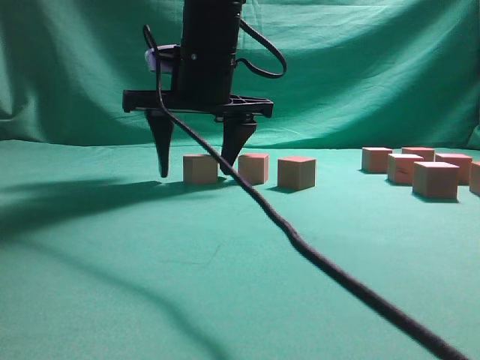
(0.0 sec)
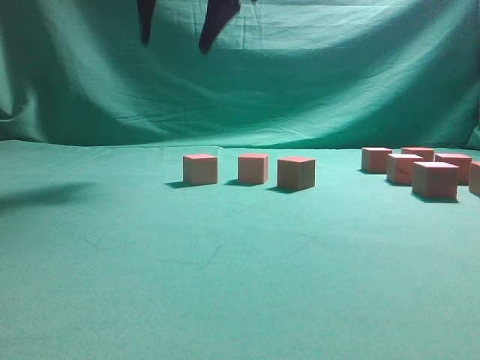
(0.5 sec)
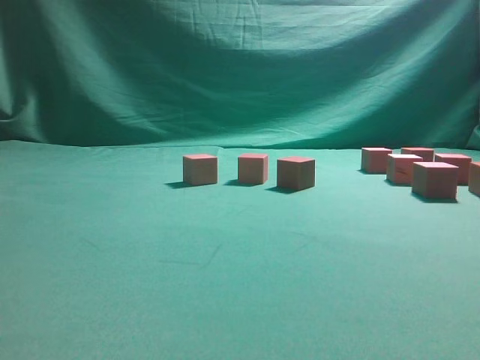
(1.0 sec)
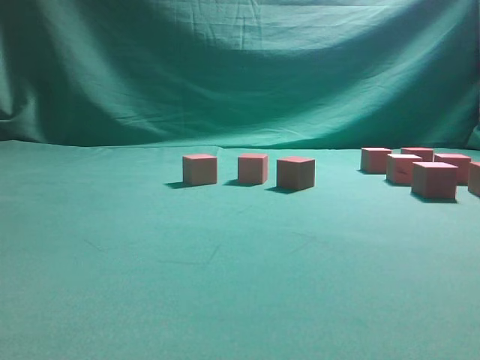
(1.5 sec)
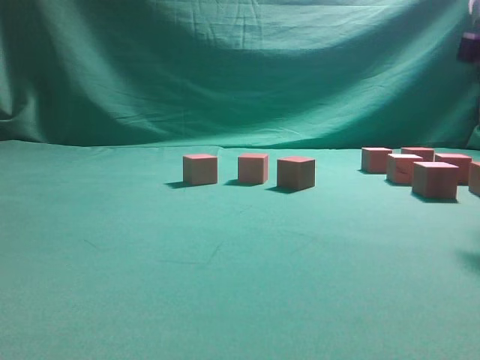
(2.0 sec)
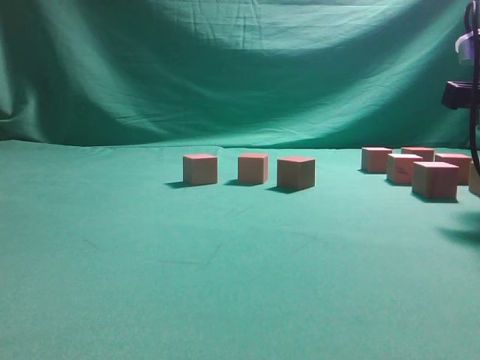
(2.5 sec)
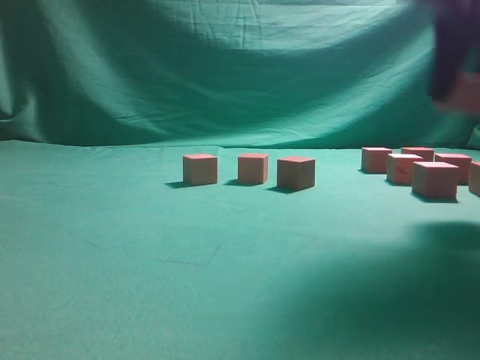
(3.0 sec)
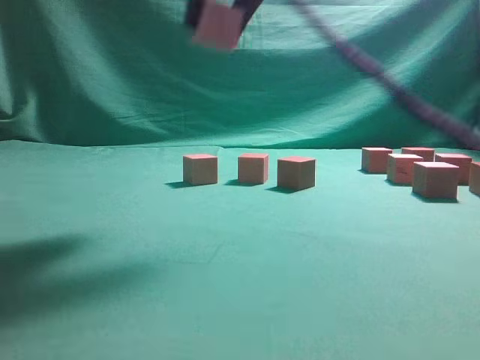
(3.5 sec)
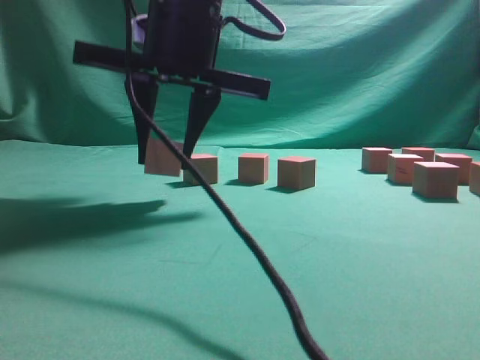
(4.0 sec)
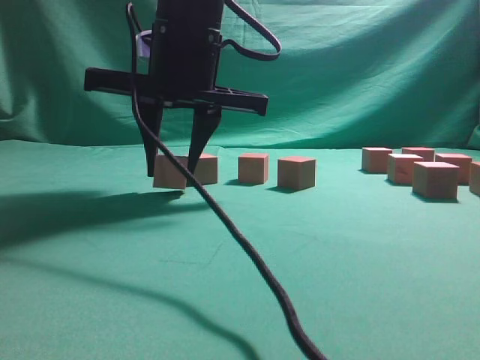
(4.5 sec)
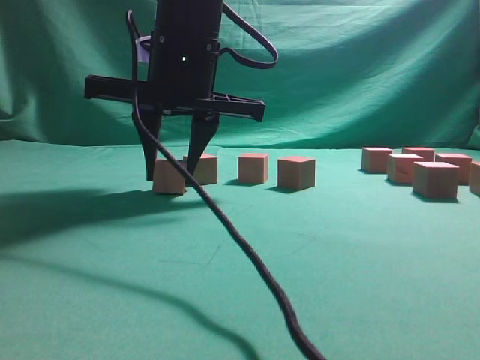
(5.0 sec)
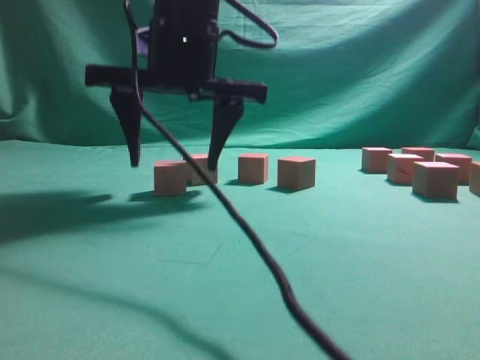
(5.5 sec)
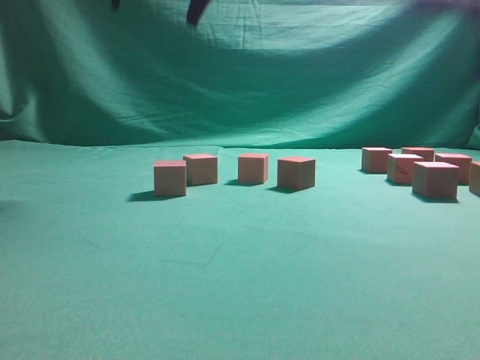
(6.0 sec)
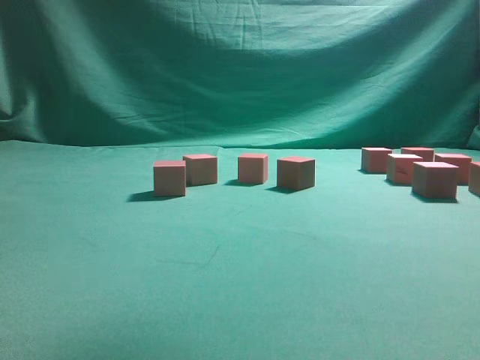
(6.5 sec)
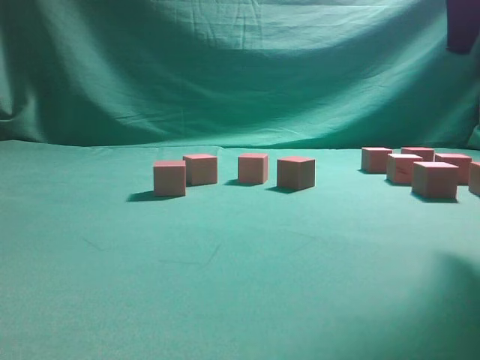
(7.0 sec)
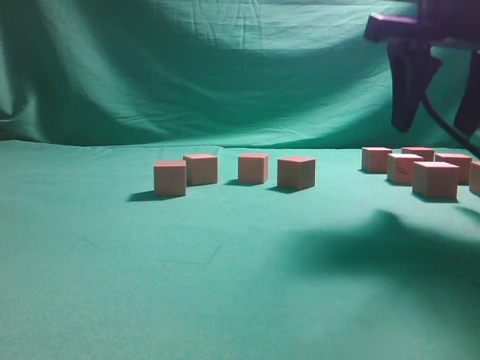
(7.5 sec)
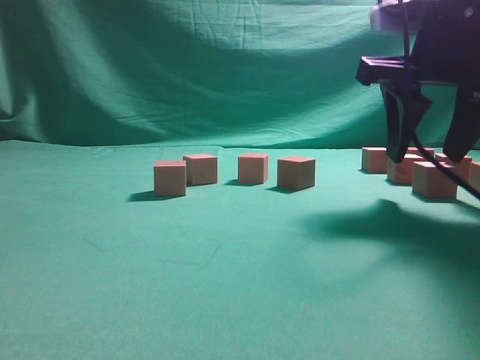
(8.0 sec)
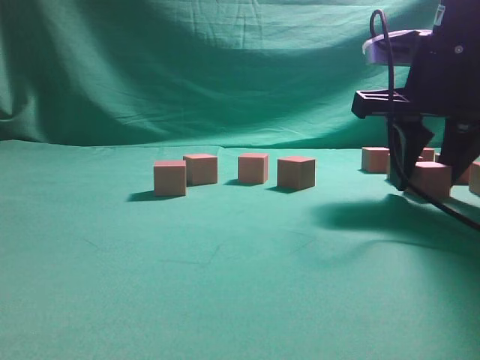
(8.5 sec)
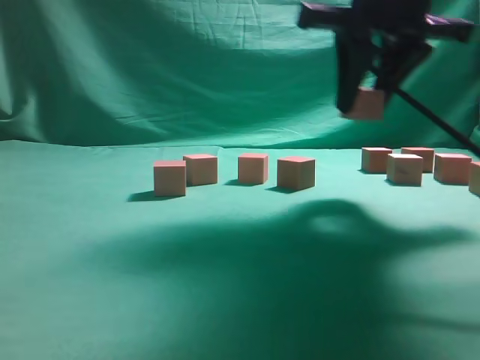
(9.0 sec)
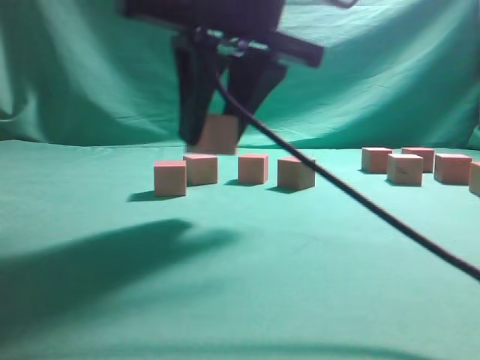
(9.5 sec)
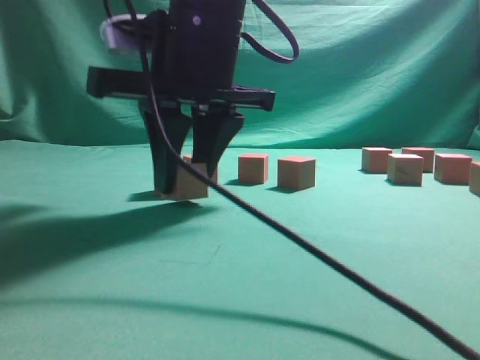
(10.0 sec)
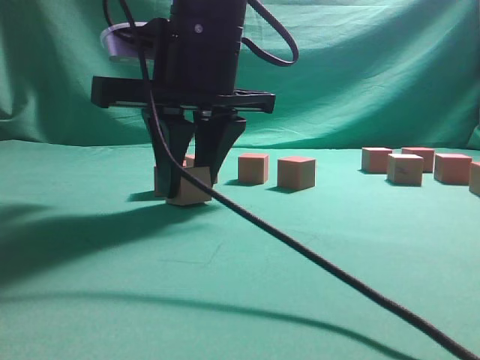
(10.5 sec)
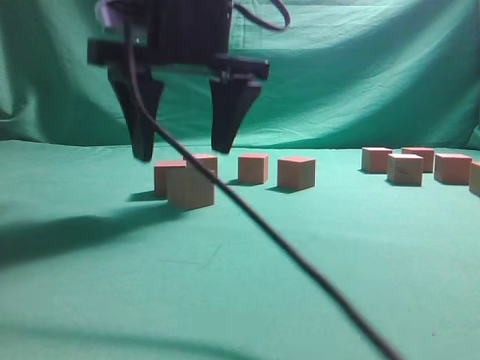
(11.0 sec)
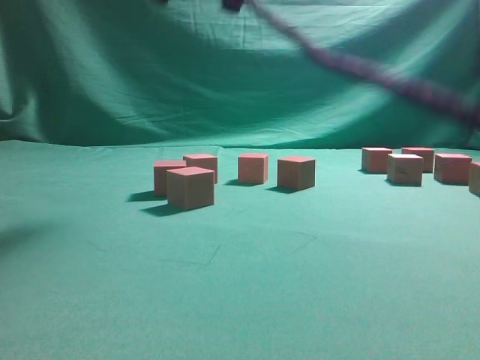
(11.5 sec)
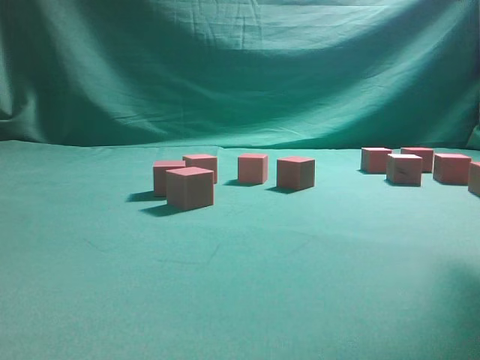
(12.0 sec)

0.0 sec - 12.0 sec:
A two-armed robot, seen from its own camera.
Task of the whole recording: pick up the multiple cubes in two columns one by one and place them in another position on the table.
Step, 0.5 sec - 2.5 sec: Pick up the block on the table.
Step, 3.0 sec - 5.5 sec: Place the block at the correct position to assemble the letter S.
Step, 6.0 sec - 8.5 sec: Pick up the block on the table.
Step, 9.0 sec - 11.0 sec: Place the block at the correct position to assemble the letter S.
0.0 sec - 2.0 sec: The right gripper moves to the right and backward, roughly 30 cm.
2.0 sec - 4.0 sec: The right gripper goes about 30 cm to the left, and closes up.
4.0 sec - 6.0 sec: The right gripper goes about 10 cm upward, and opens.
6.0 sec - 8.0 sec: The right gripper travels to the right and downward by about 25 cm.
8.0 sec - 10.0 sec: The right gripper heads to the left, covering roughly 20 cm.
10.0 sec - 12.0 sec: The right gripper moves to the right and upward, roughly 30 cm, and opens.

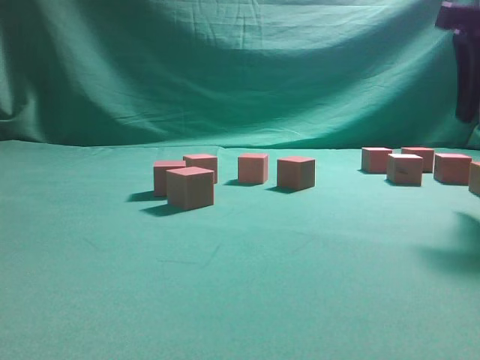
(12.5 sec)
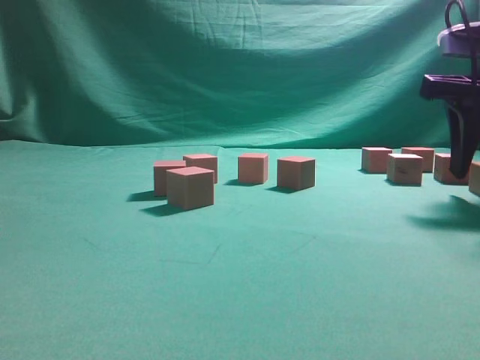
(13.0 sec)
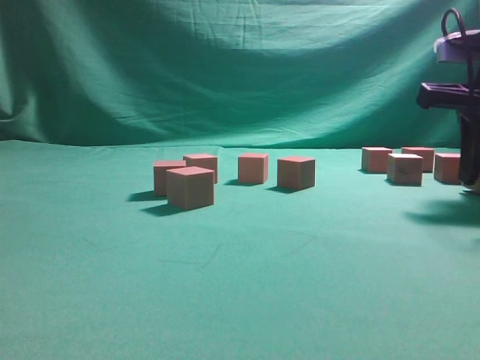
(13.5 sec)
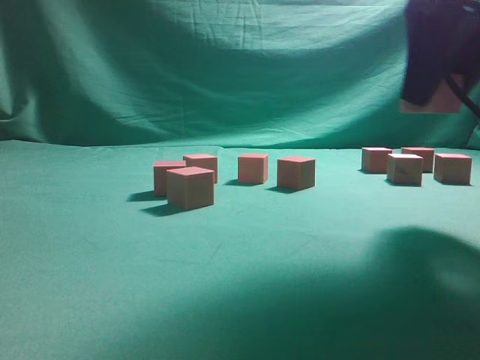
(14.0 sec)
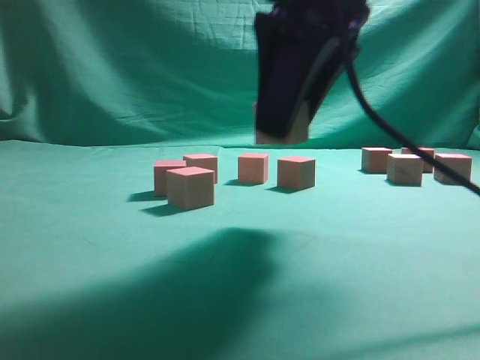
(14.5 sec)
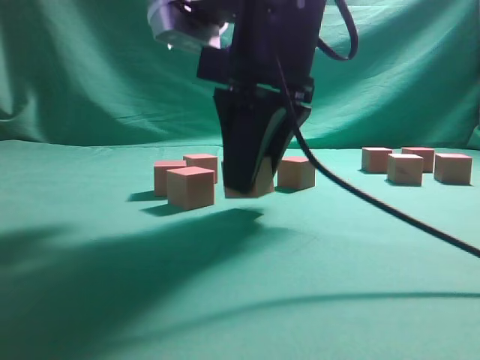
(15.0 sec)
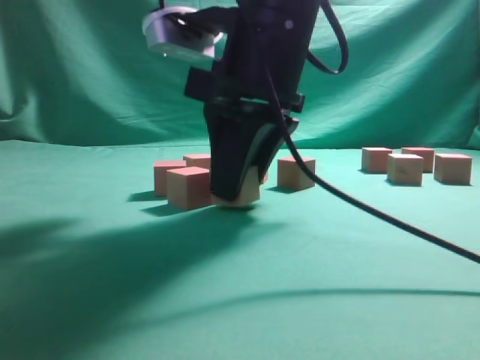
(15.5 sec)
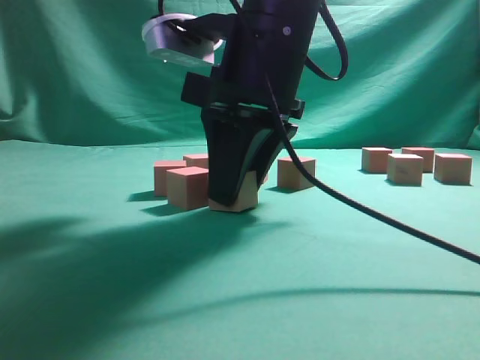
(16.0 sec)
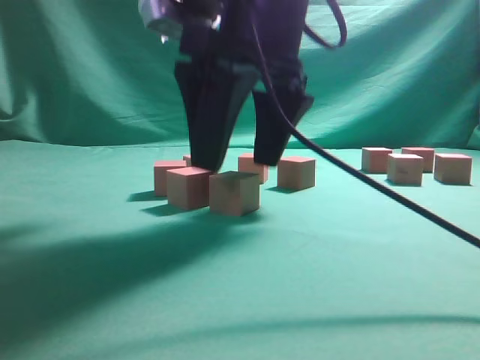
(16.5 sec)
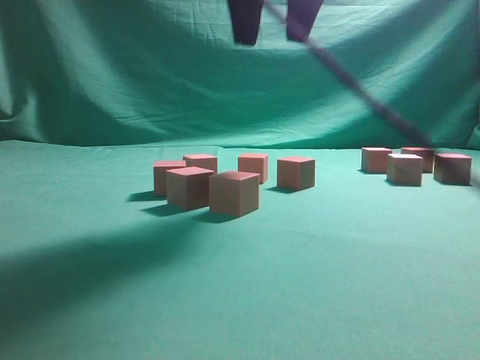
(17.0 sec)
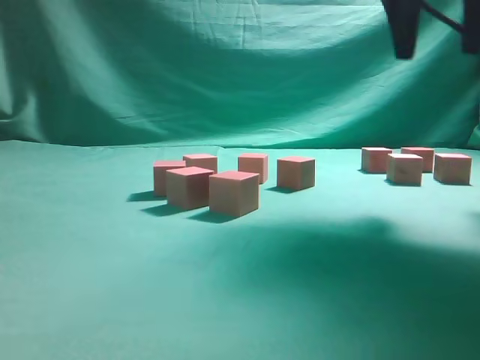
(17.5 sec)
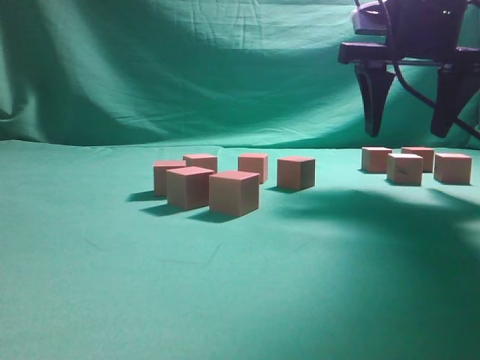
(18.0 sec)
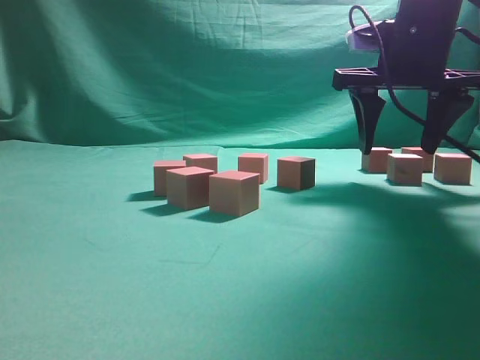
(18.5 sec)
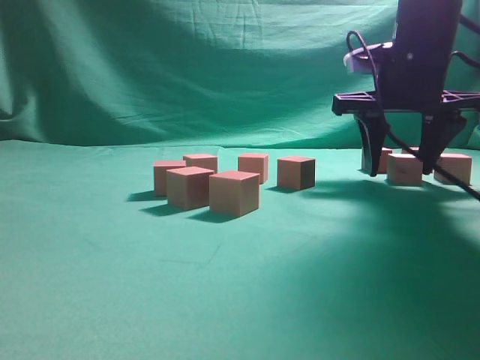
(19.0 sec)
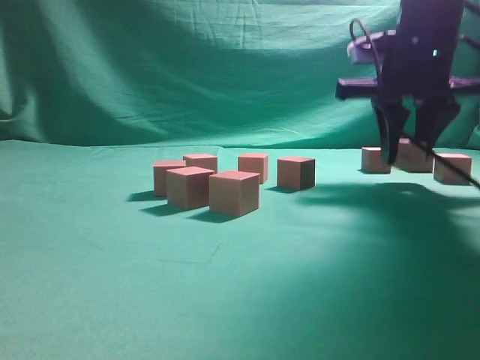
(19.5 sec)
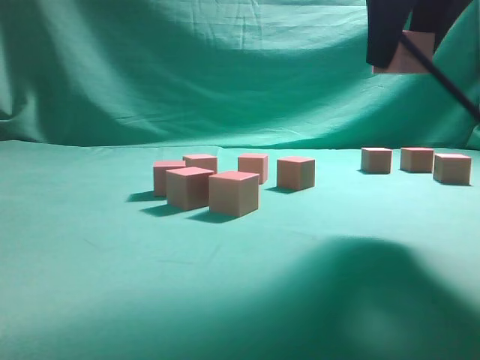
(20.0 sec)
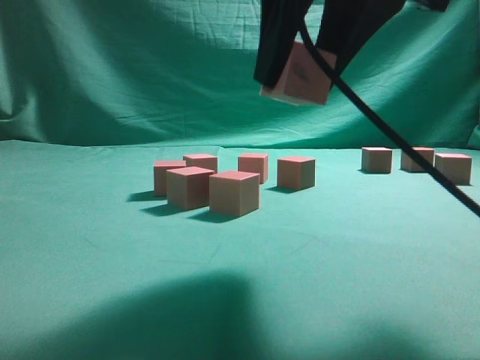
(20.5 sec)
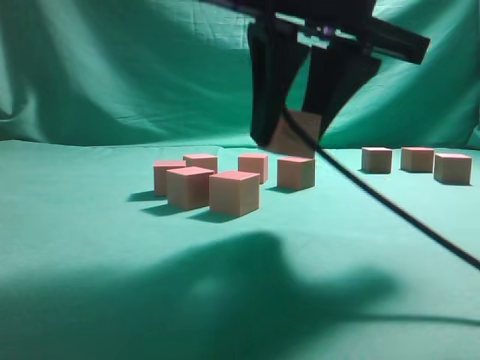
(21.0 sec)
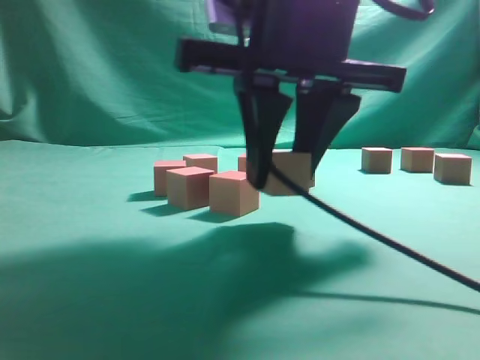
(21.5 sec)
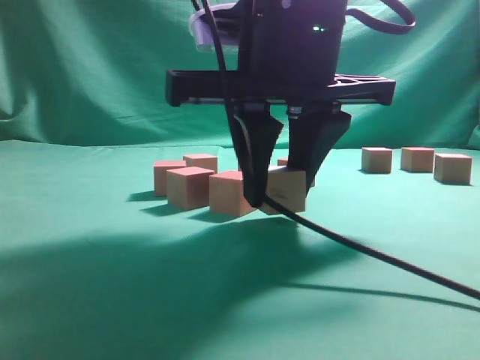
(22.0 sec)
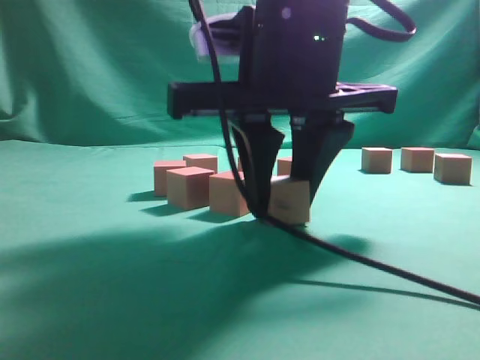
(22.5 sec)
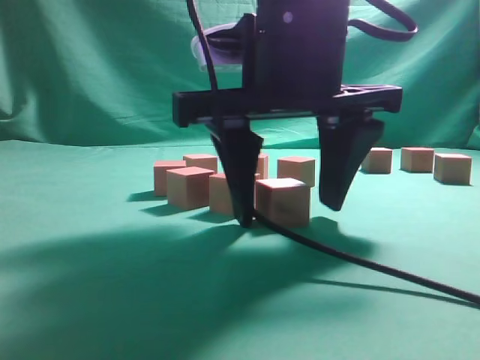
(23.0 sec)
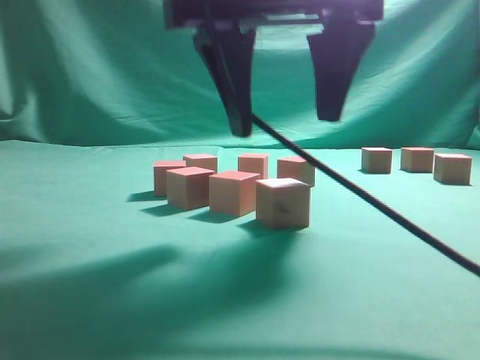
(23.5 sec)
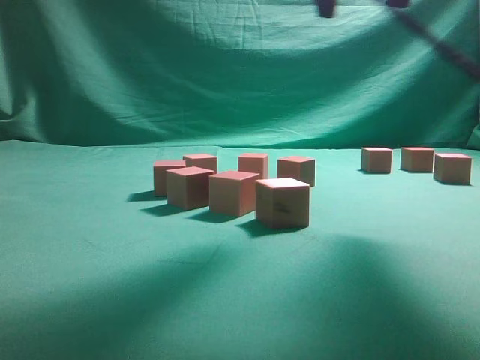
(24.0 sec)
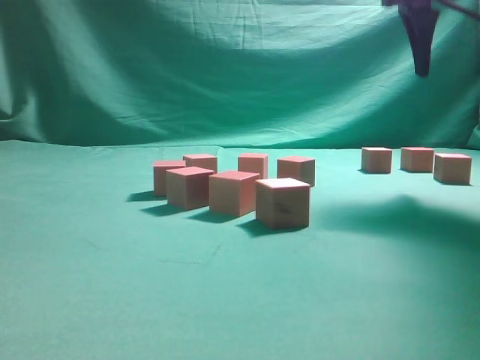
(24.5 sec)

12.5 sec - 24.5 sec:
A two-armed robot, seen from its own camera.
Task of the whole recording: pick up the multiple cubes in two columns one by one and place them in another position on the table.
Step, 14.0 sec - 16.5 sec: Place the block at the correct position to assemble the letter S.
Step, 17.0 sec - 19.5 sec: Pick up the block on the table.
Step, 20.0 sec - 23.5 sec: Place the block at the correct position to assemble the letter S.
12.5 sec - 14.5 sec: The right gripper heads to the left, covering approximately 20 cm, and closes up.
14.5 sec - 16.5 sec: The right gripper moves about 5 cm, and opens its fingers.
16.5 sec - 18.5 sec: The right gripper travels to the right and forward by approximately 20 cm.
18.5 sec - 20.5 sec: The right gripper moves backward and to the left, roughly 20 cm, and closes up.
20.5 sec - 22.5 sec: The right gripper moves downward, roughly 10 cm.
22.5 sec - 24.5 sec: The right gripper goes approximately 25 cm to the right, forward and upward, and opens.

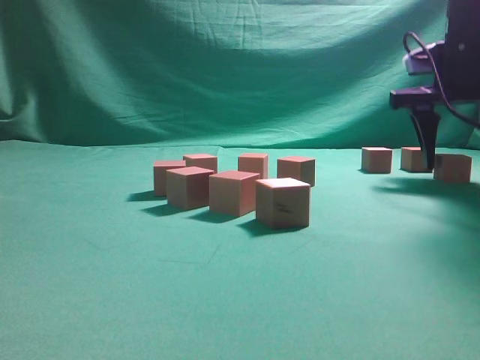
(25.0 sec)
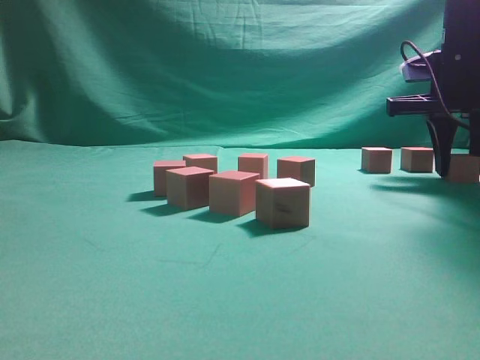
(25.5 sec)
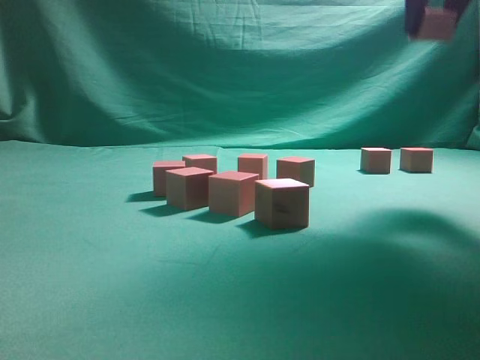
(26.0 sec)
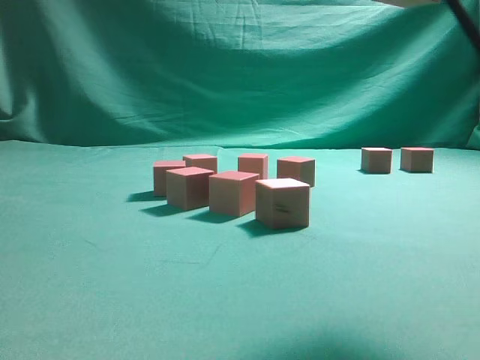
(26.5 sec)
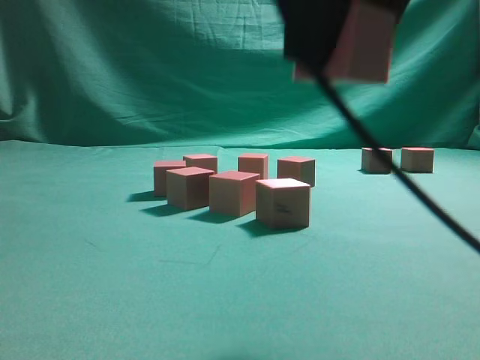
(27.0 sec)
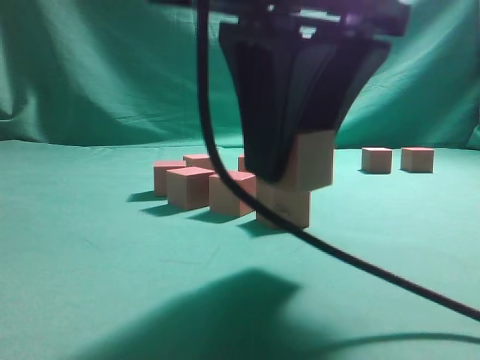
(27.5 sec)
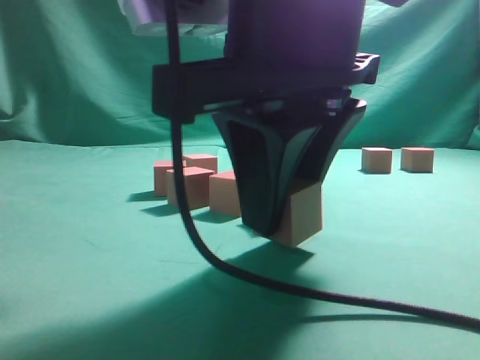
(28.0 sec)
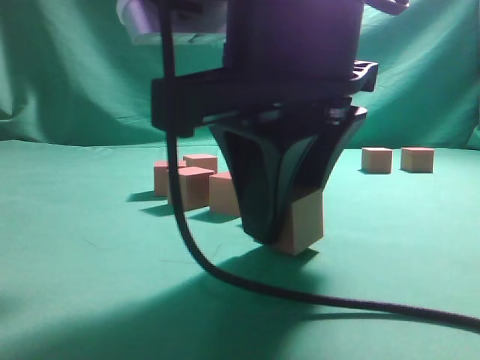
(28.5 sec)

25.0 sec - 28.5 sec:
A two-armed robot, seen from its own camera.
Task of the whole recording: pick up the multiple cubes in two columns one by one and place them in another position on the table.
25.0 sec - 27.0 sec: The right gripper travels backward and to the left by roughly 30 cm, and closes.
27.0 sec - 28.5 sec: The right gripper is displaced downward by some 10 cm.
